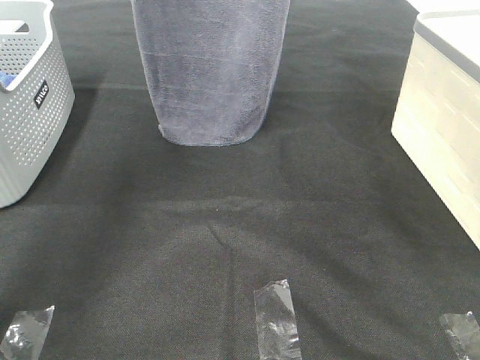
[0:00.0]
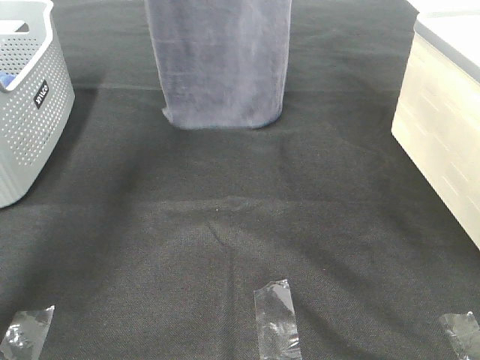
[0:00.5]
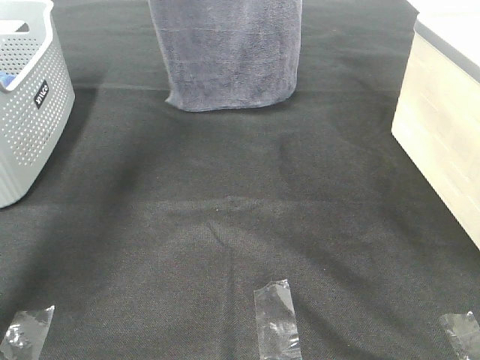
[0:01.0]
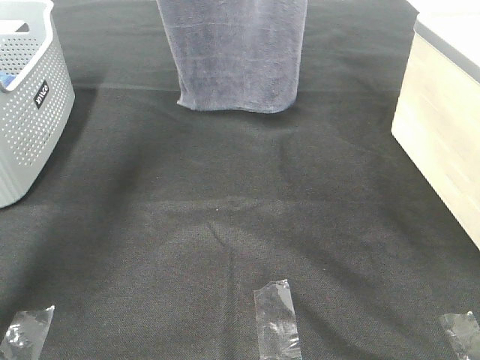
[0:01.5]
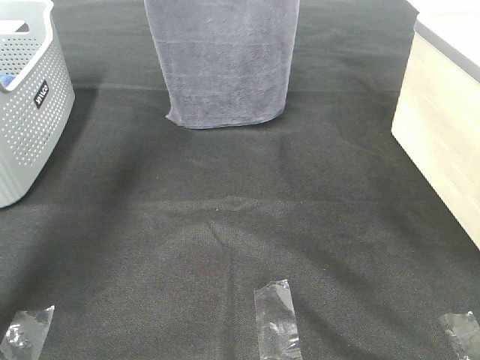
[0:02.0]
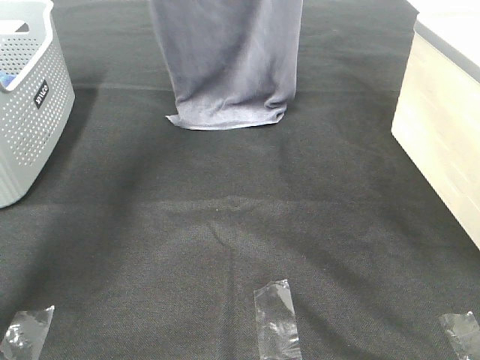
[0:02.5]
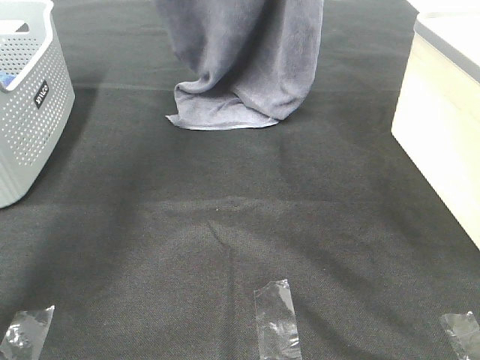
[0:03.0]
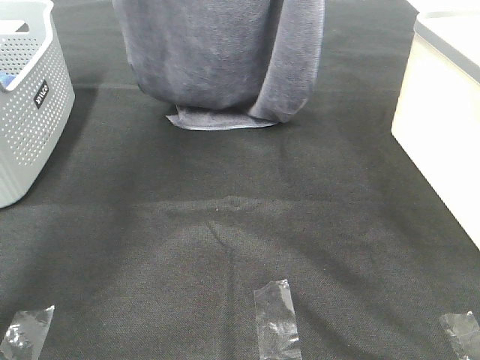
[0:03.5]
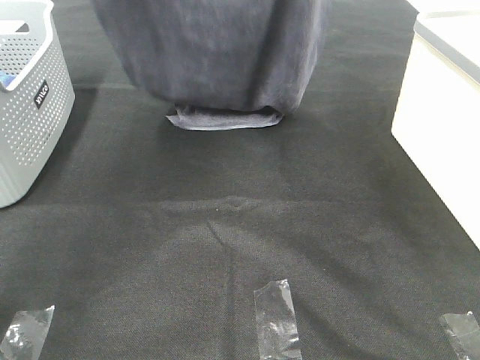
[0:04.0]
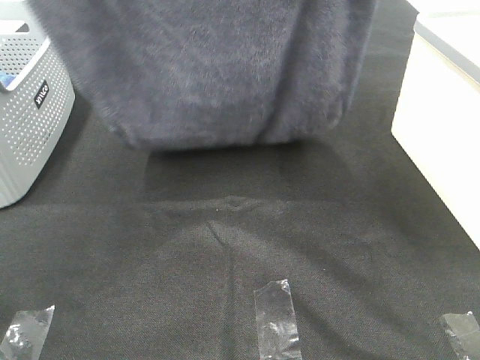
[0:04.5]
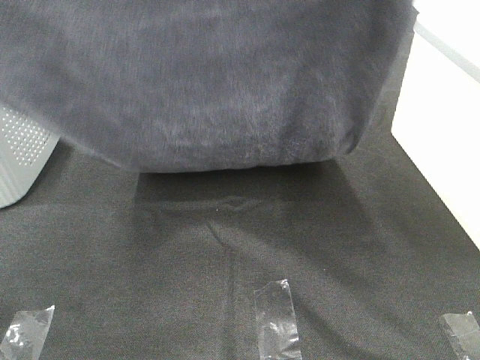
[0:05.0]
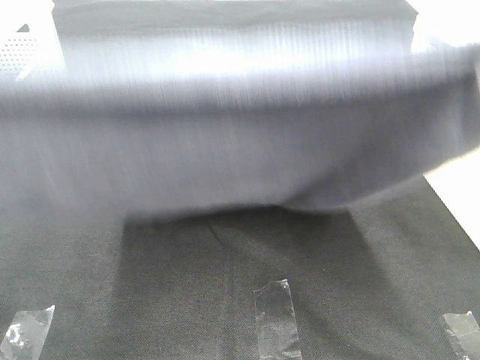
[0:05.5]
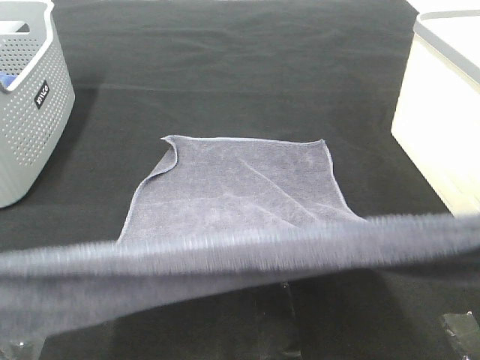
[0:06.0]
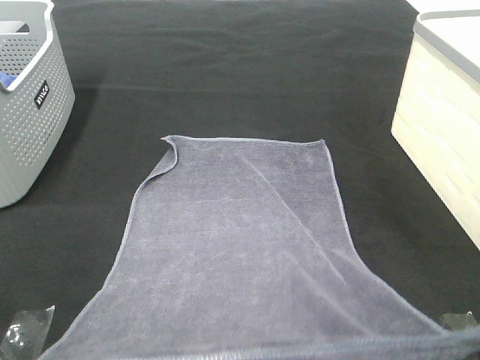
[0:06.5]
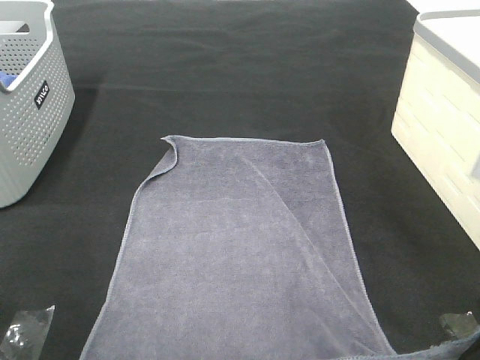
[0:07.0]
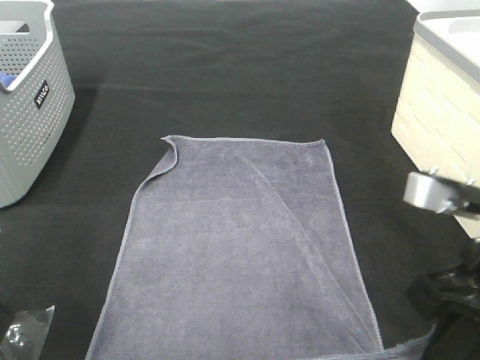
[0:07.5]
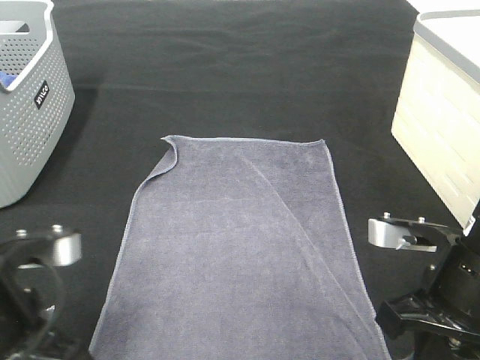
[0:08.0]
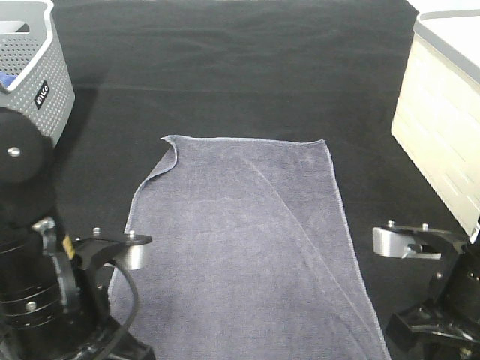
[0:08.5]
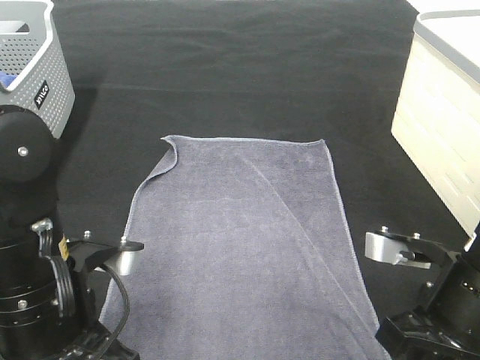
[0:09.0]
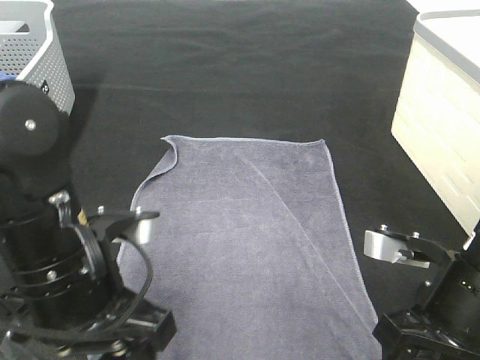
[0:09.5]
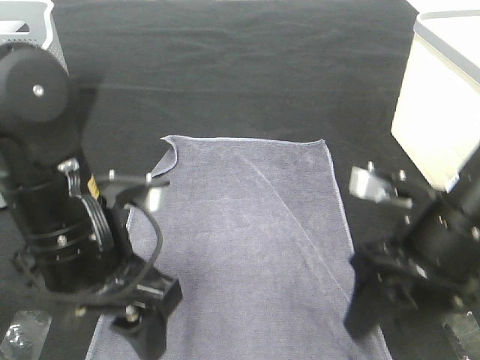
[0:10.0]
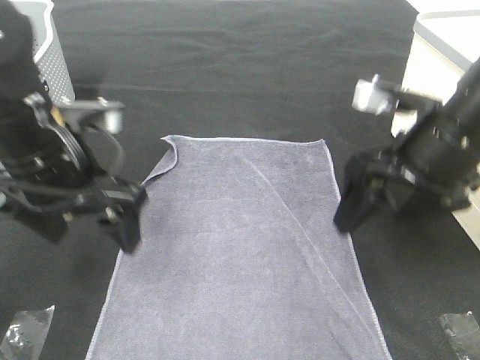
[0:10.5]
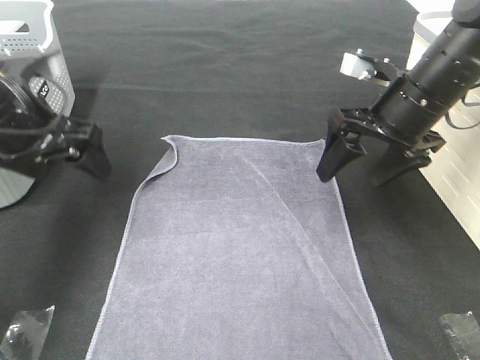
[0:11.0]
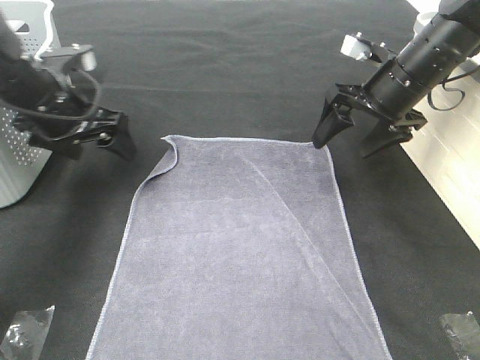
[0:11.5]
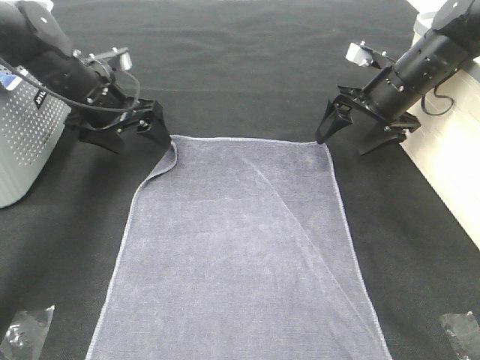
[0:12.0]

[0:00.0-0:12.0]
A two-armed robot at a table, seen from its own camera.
Task of the whole recording: Remove the towel and place it.
Step, 0:00.0 to 0:05.0: Left hand: spread the grey towel flat on the table.
Step, 0:00.0 to 0:05.0: Right hand: spread the grey towel flat on the table.
0:00.0 to 0:02.0: The left gripper travels forward by approximately 5 cm.
0:02.0 to 0:04.0: The two grippers go about 15 cm backward.
0:04.0 to 0:06.0: The two grippers go approximately 30 cm backward and downward.
0:06.0 to 0:08.0: Both grippers travel together downward and forward, some 20 cm.
0:08.0 to 0:10.0: The right gripper opens, while the left gripper heads to the right and forward, covering roughly 10 cm, and opens its fingers.
0:10.0 to 0:12.0: Both grippers move forward, some 25 cm.

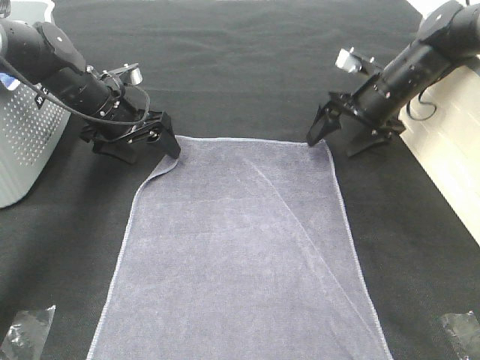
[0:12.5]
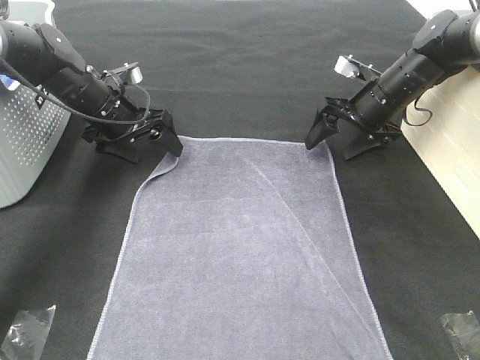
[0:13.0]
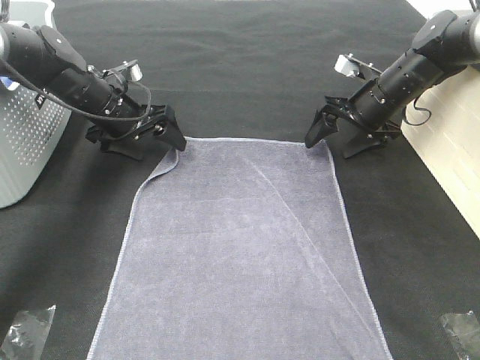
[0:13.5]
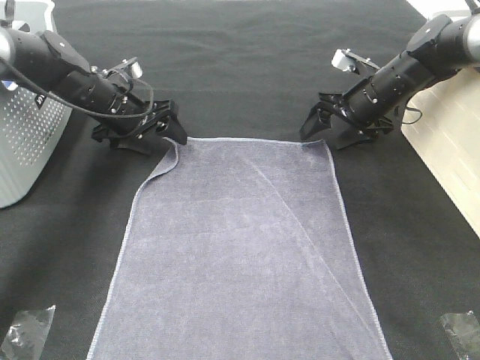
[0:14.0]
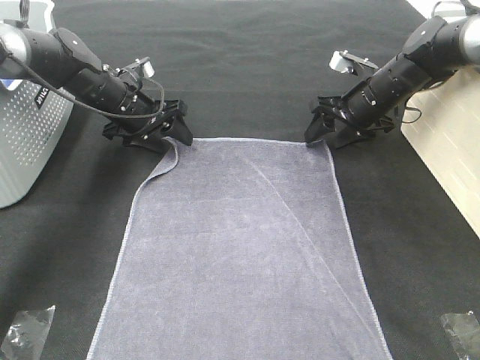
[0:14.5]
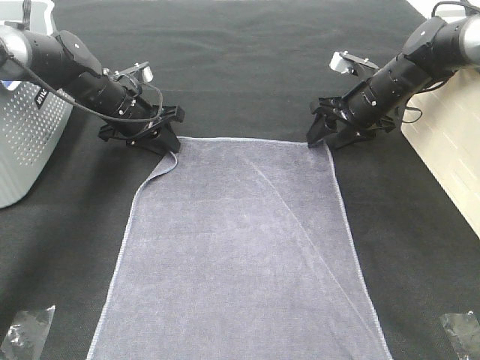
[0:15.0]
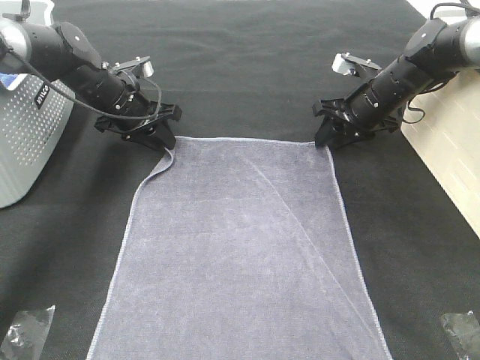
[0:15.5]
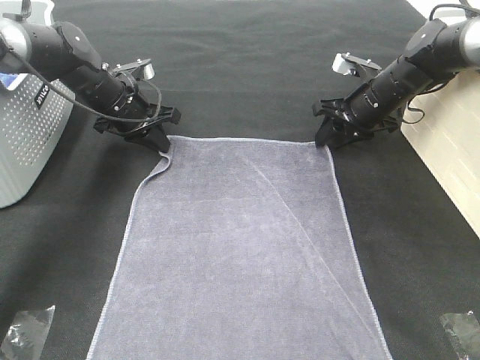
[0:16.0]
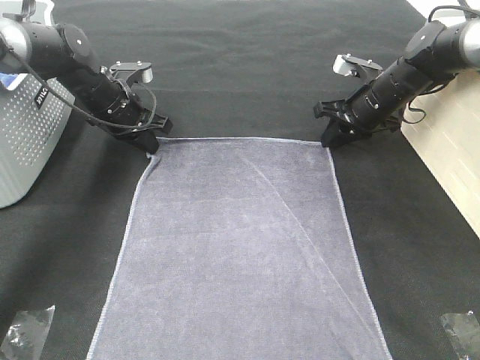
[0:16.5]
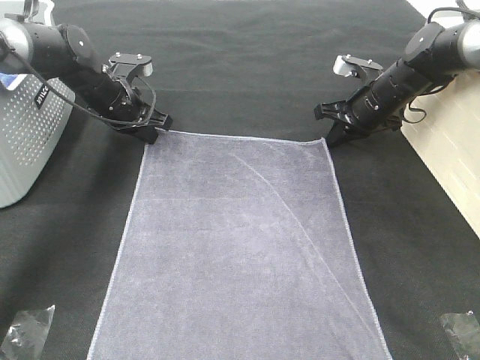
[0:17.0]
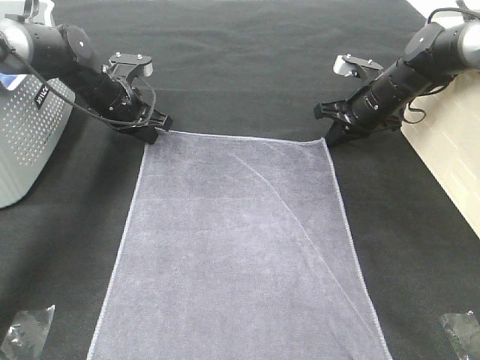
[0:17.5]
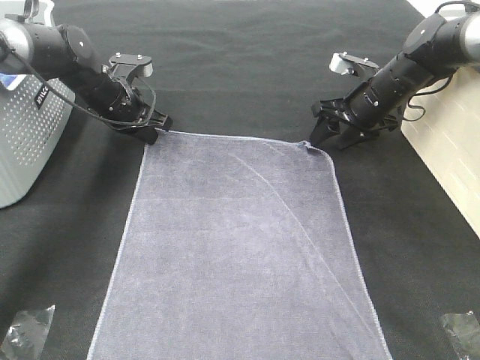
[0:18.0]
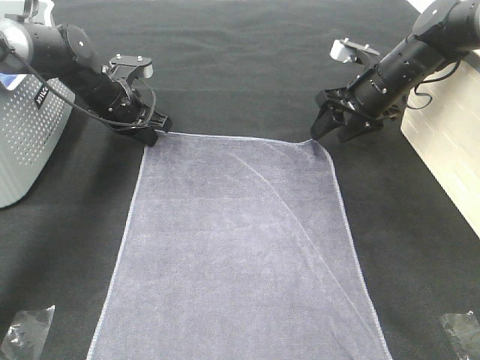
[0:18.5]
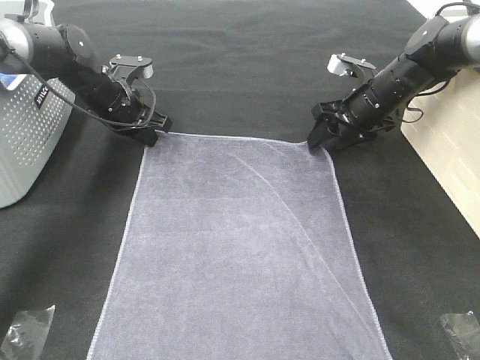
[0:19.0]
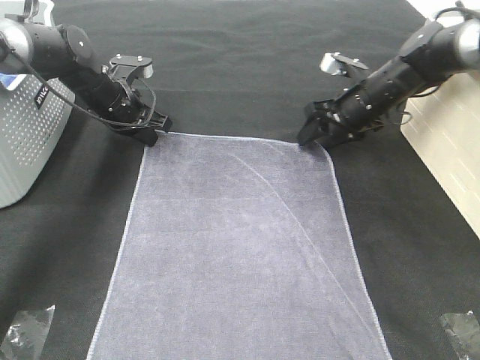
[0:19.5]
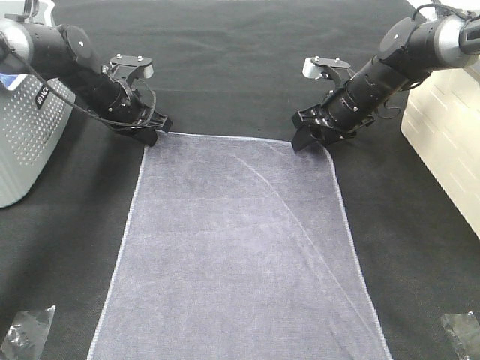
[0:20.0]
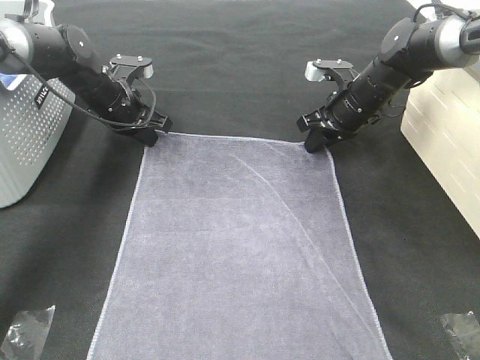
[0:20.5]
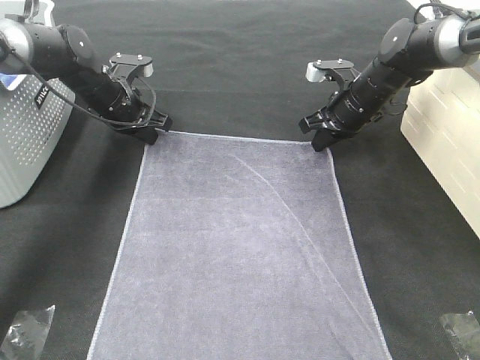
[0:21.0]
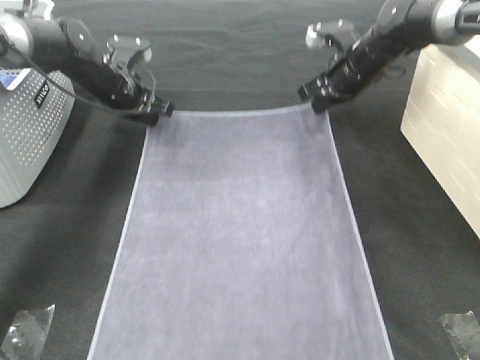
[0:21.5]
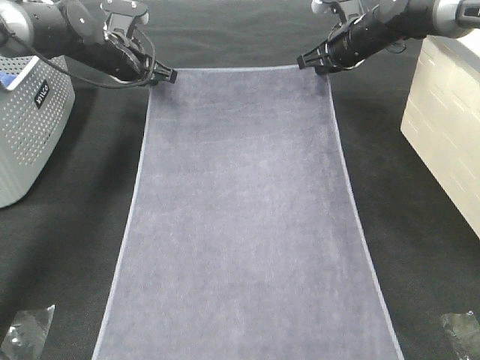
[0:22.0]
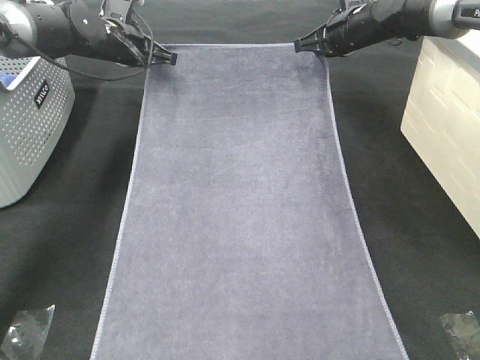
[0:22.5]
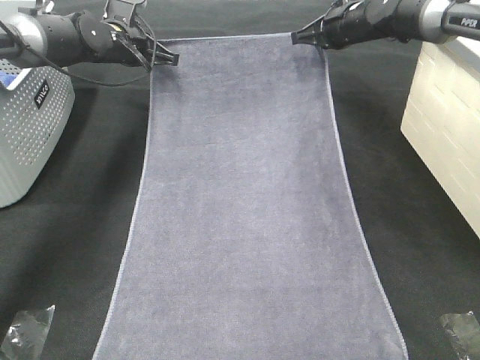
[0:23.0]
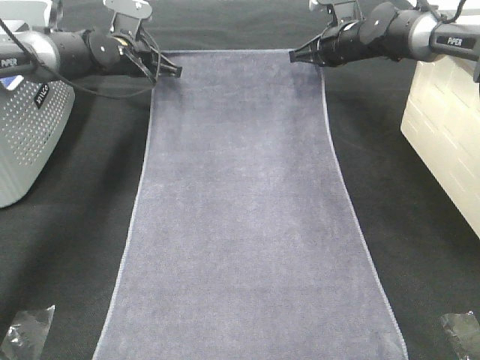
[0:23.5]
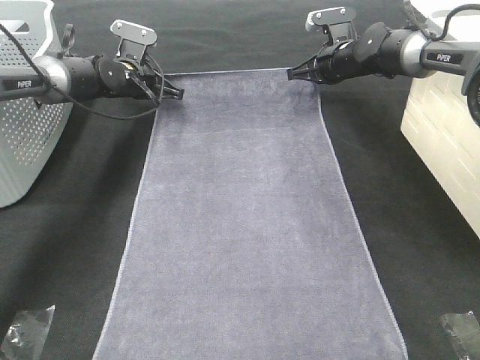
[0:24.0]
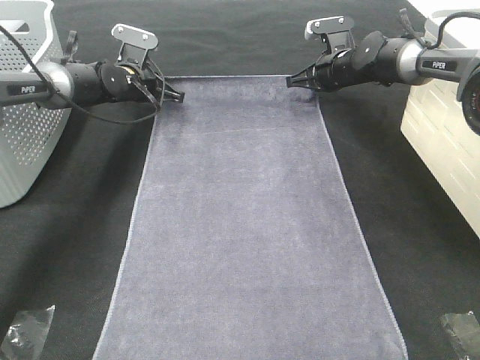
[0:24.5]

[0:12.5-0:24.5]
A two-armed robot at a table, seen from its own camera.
Task of the whole recording: Remove the towel and place it.
Step, 0:12.5 to 0:17.5: Right hand:adjust the gray towel.
Step, 0:12.5 to 0:19.5: Left hand:adjust the gray towel.
0:12.5 to 0:14.5: The grippers move only a little.
0:14.5 to 0:16.5: The left gripper closes its fingers; the right gripper closes.
0:16.5 to 0:18.5: The right gripper opens its fingers.
0:18.5 to 0:20.5: The right gripper closes its fingers.
0:20.5 to 0:22.5: The two grippers go about 10 cm upward and forward.
0:22.5 to 0:24.5: Both grippers move downward, about 10 cm.

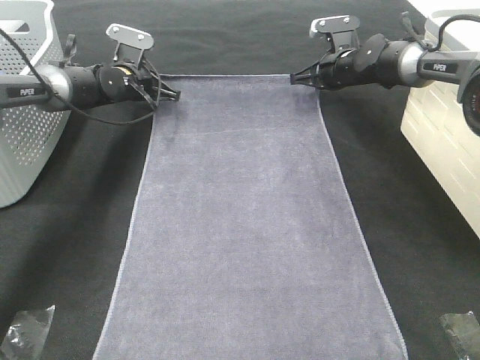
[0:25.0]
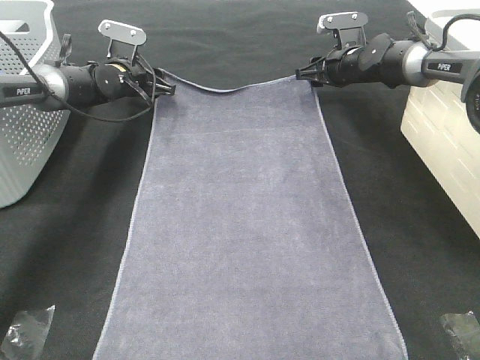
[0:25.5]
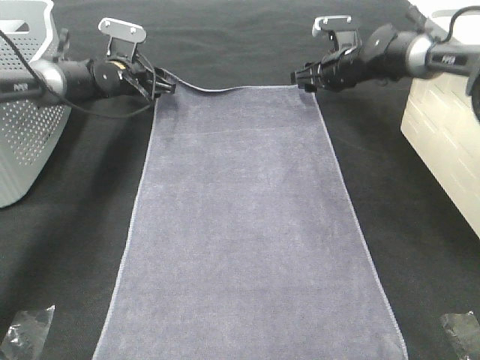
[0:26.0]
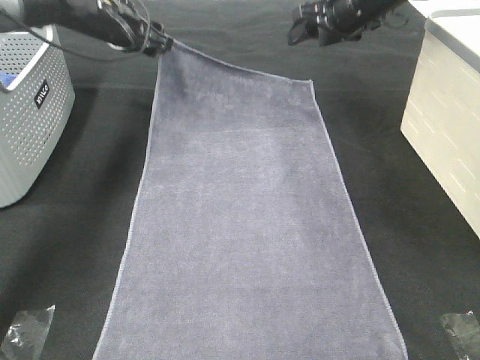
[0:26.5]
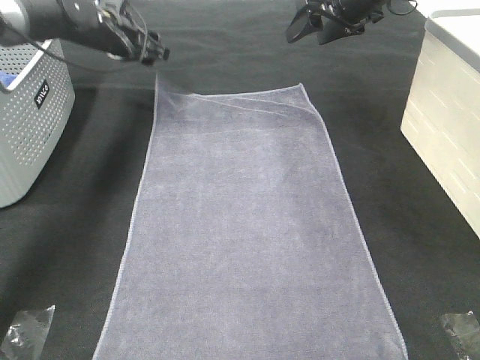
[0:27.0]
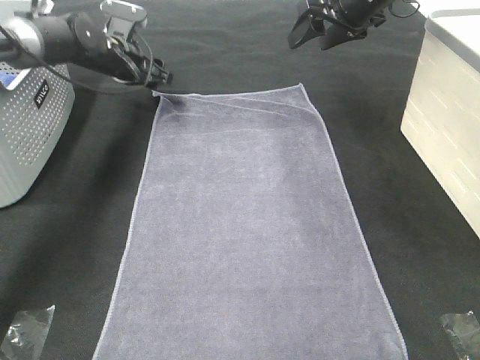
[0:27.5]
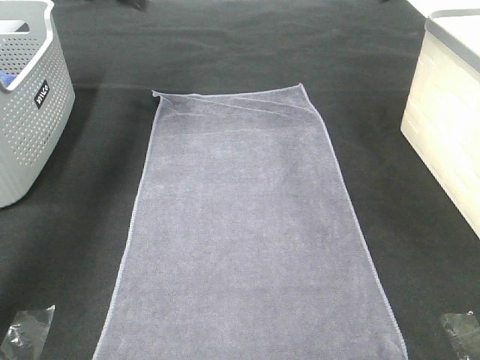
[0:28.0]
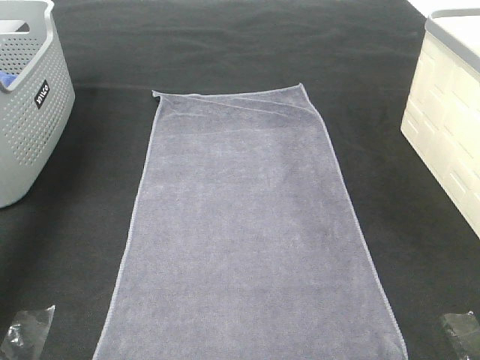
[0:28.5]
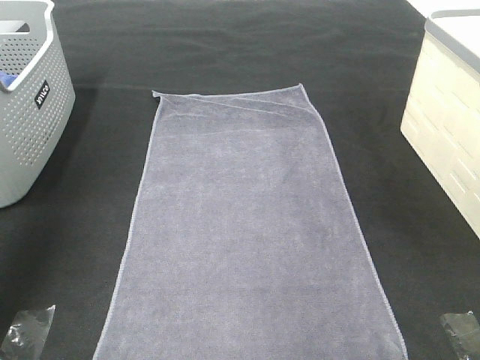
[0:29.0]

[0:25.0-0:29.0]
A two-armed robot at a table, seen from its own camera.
Task of the whole recording: Remove the towel and place it.
0:25.0 to 0:27.0: The right gripper goes some 15 cm upward and backward, and opens. The left gripper shifts some 10 cm upward, and opens its fingers.
0:27.0 to 0:29.0: Both grippers move backward and upward, roughly 40 cm.
